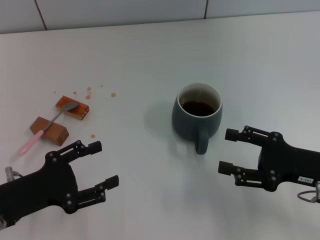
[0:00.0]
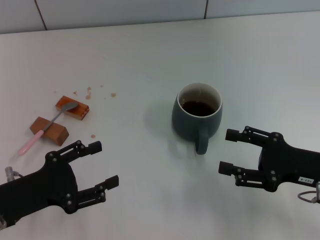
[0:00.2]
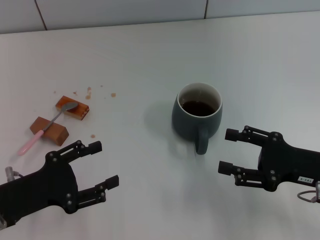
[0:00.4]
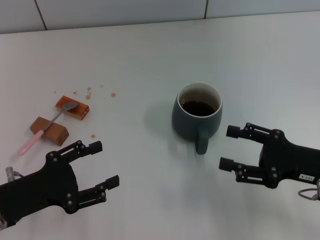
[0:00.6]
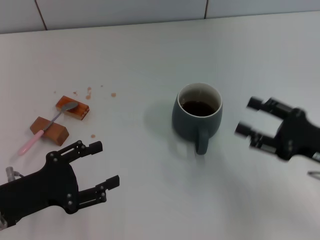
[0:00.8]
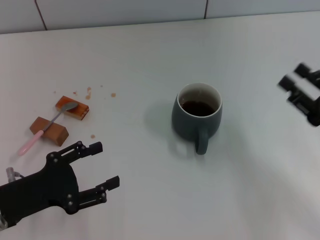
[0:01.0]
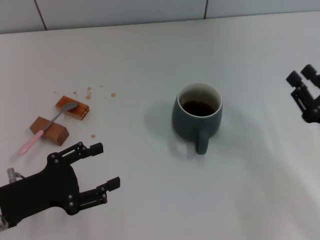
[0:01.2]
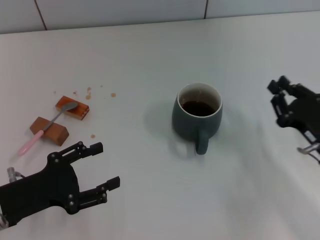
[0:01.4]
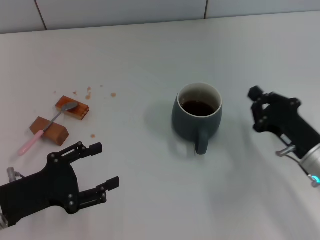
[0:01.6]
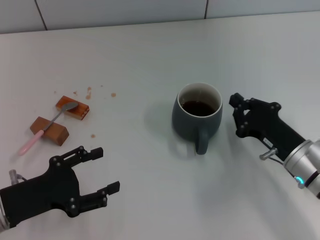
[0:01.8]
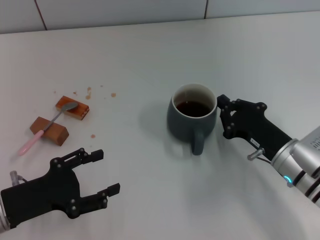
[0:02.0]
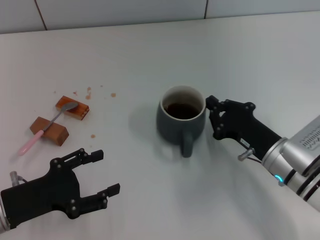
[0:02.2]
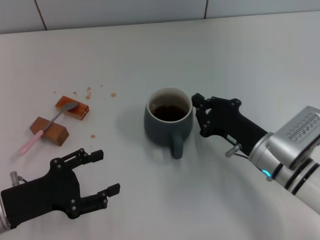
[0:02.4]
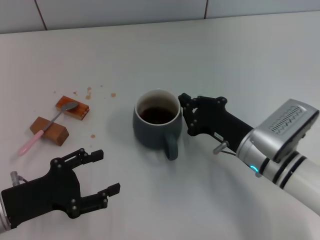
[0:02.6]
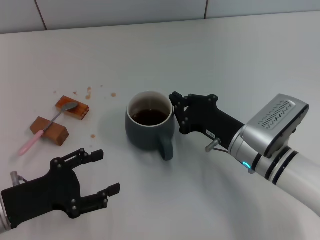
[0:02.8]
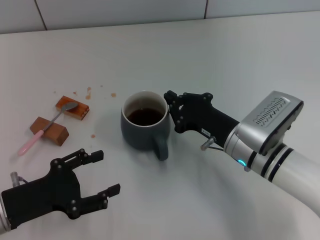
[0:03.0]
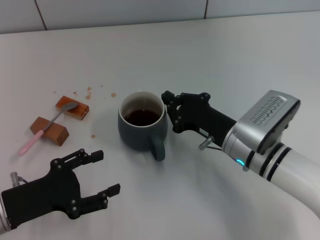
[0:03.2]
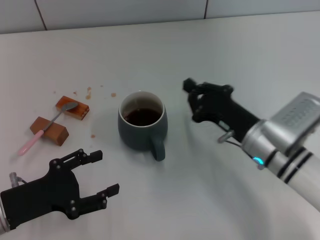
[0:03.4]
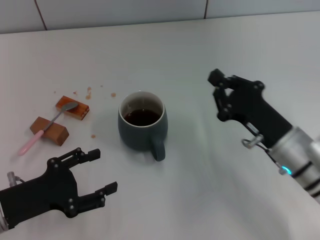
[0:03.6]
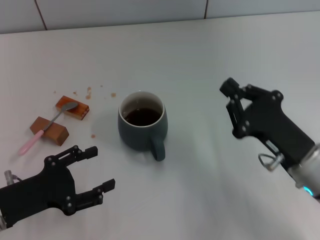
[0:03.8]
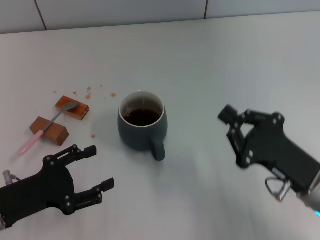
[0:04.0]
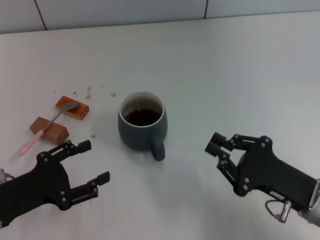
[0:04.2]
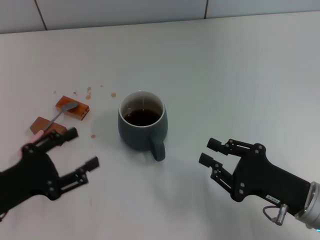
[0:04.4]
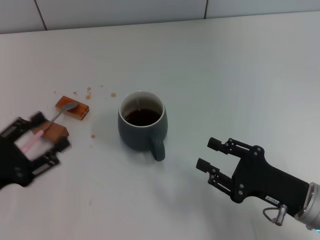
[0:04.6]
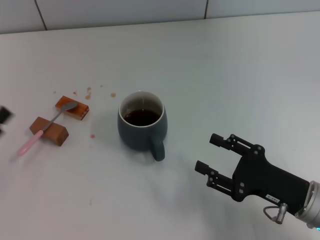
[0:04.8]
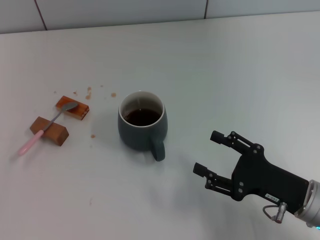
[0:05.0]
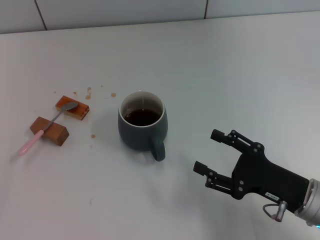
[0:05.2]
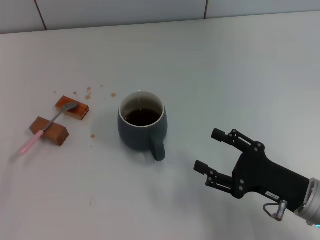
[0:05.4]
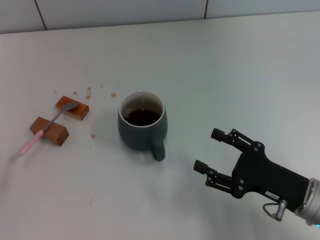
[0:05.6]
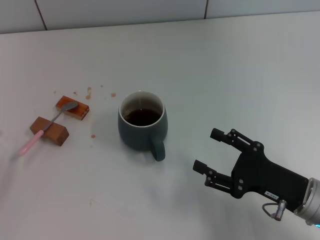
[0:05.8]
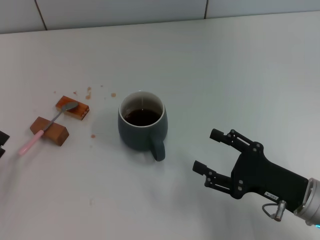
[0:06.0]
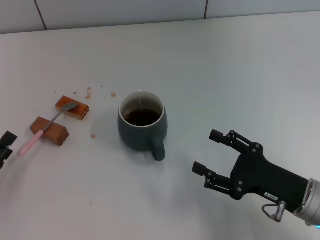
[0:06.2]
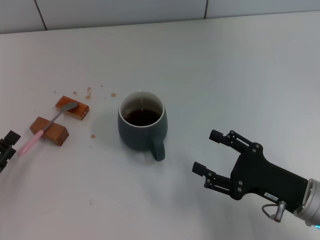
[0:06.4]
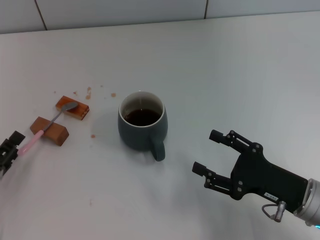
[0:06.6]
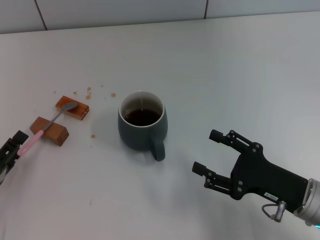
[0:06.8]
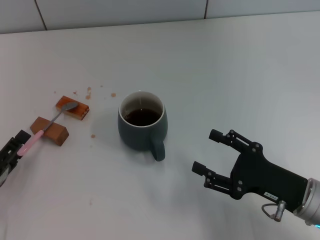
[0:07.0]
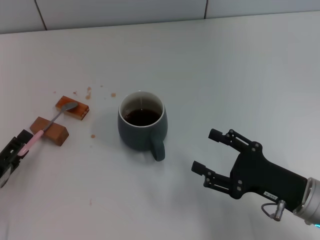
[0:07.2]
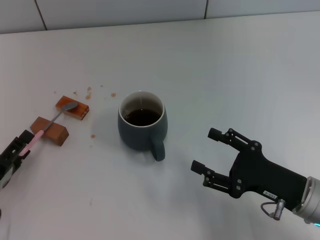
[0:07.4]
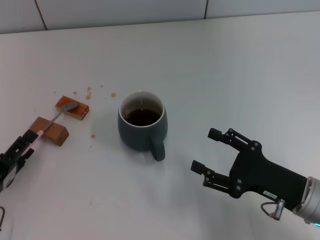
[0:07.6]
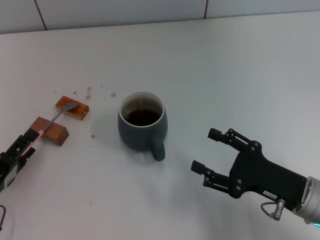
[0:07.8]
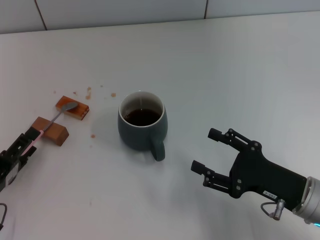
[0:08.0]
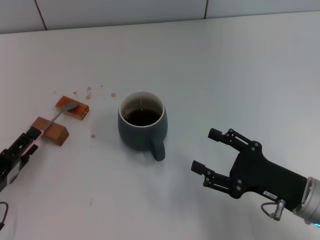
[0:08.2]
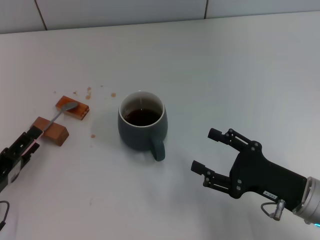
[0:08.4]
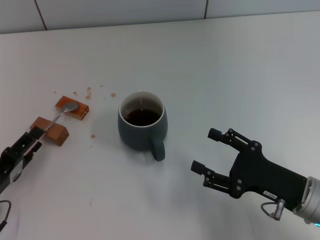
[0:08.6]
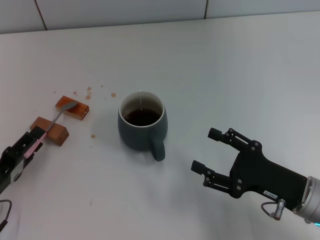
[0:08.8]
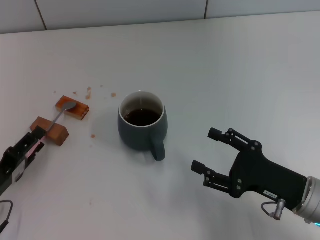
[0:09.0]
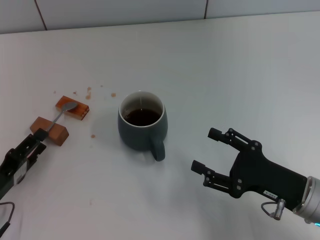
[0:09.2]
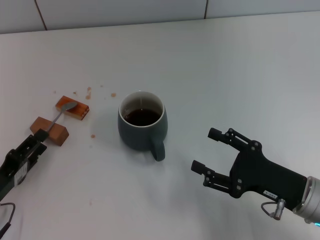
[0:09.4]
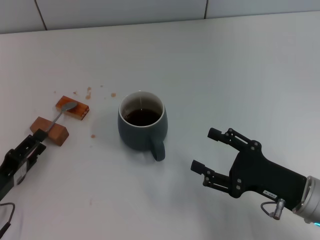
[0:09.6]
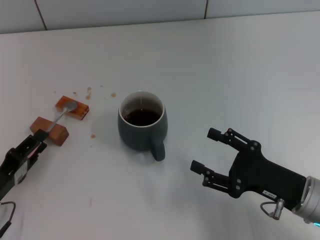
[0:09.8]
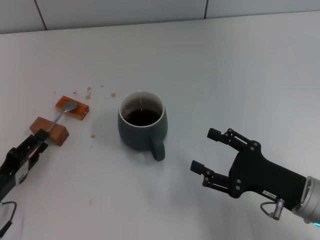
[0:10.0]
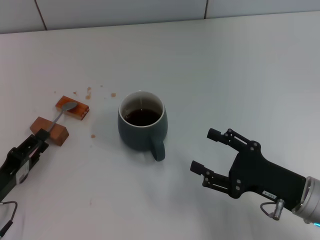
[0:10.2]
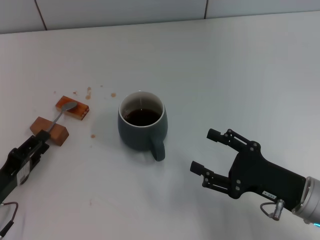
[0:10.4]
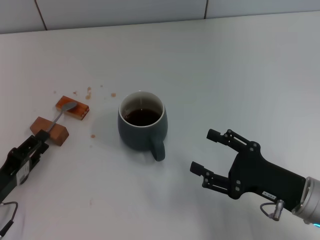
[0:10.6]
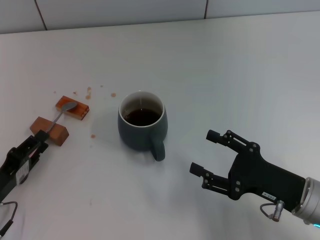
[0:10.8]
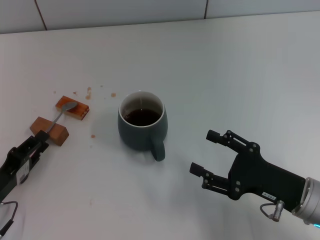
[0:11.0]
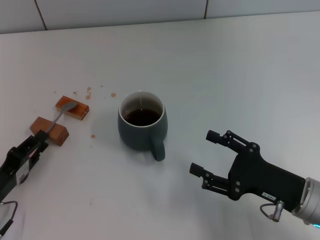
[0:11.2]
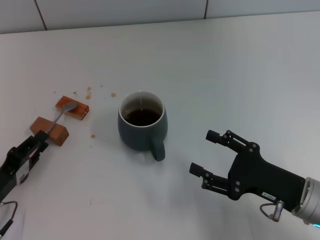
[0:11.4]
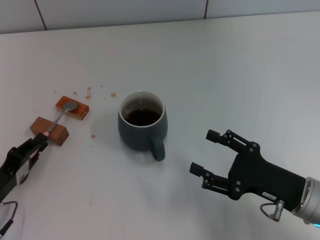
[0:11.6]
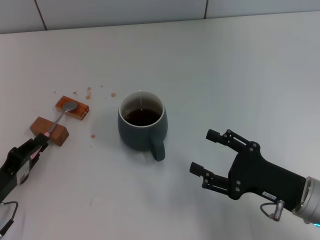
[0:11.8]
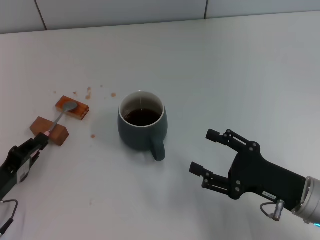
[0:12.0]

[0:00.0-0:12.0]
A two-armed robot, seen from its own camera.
Task of the whole recording: Move the grey cup to the center, lift the pink spoon, stir it three times in the cup, and put the spoon into the cup.
Step, 0:00.0 to 0:03.2: Move the cup with coffee to the center of view with the right gripper.
0:00.0 to 0:01.6: The right gripper moves some 5 cm, and closes its fingers.
0:01.6 to 0:03.0: The right gripper shifts approximately 10 cm to the left.
0:03.0 to 0:04.4: The right gripper moves backward and to the right, roughly 15 cm.
0:04.4 to 0:06.0: The right gripper opens; the left gripper is displaced to the left by approximately 5 cm.
0:06.0 to 0:09.0: There are only small adjustments of the grippers.
0:09.0 to 0:10.4: Neither gripper changes place.
0:10.4 to 0:12.0: The left gripper closes up.

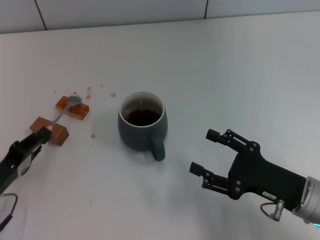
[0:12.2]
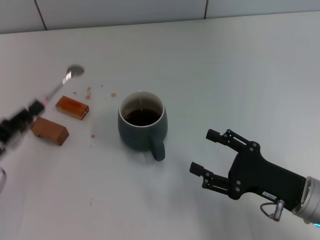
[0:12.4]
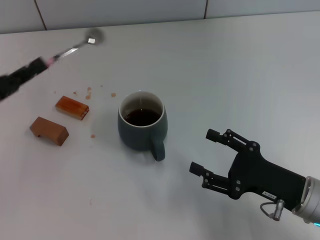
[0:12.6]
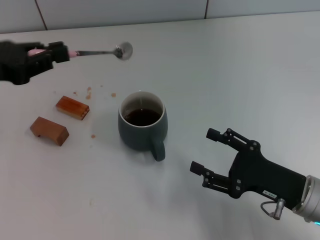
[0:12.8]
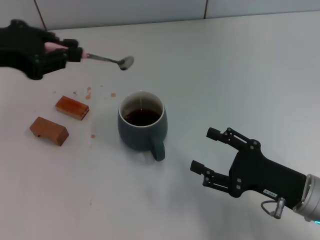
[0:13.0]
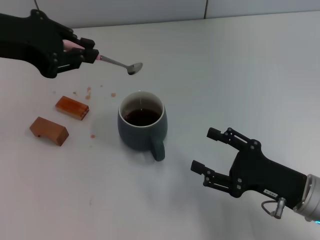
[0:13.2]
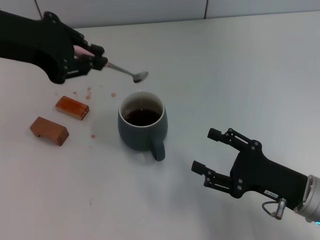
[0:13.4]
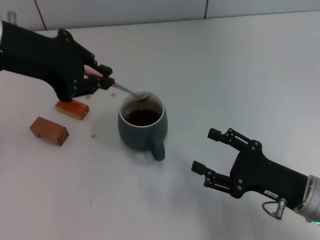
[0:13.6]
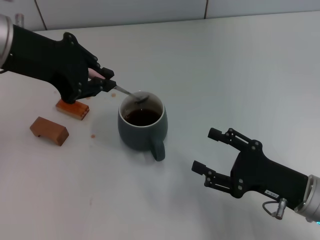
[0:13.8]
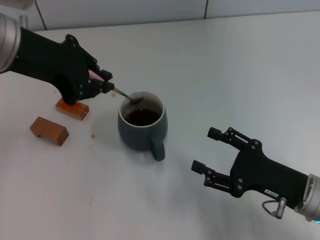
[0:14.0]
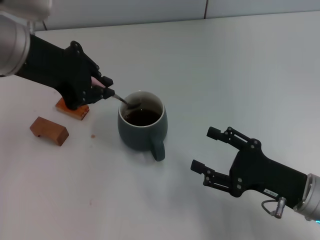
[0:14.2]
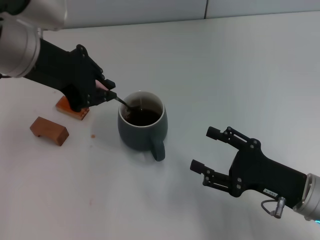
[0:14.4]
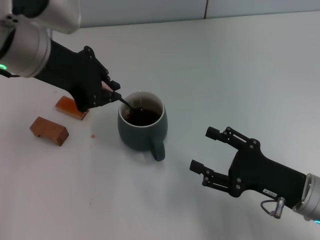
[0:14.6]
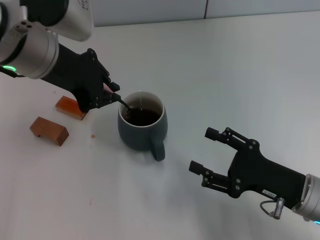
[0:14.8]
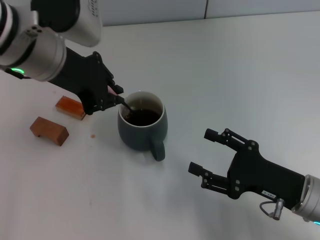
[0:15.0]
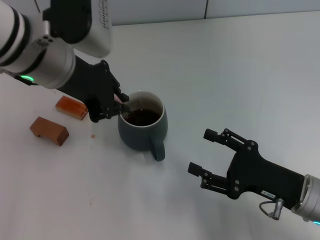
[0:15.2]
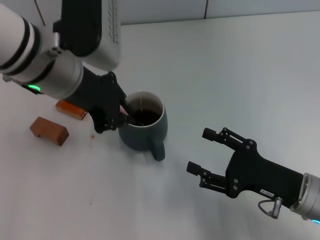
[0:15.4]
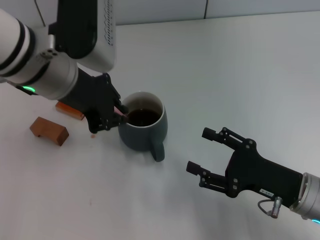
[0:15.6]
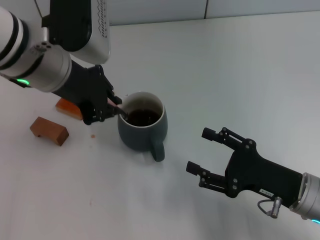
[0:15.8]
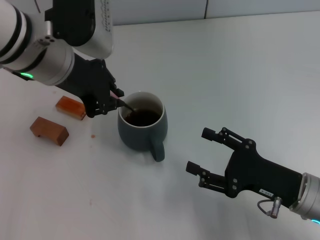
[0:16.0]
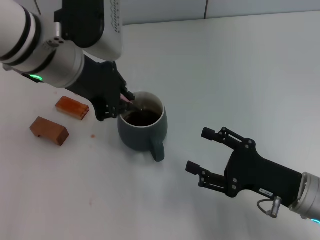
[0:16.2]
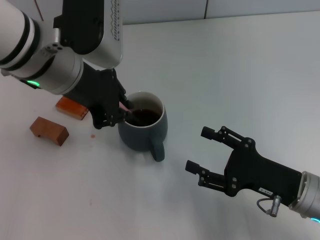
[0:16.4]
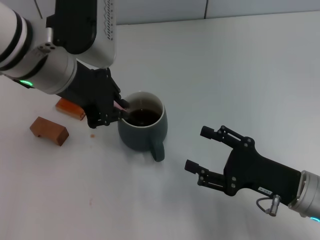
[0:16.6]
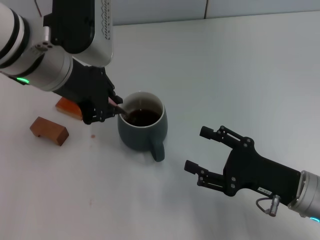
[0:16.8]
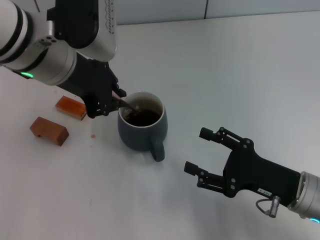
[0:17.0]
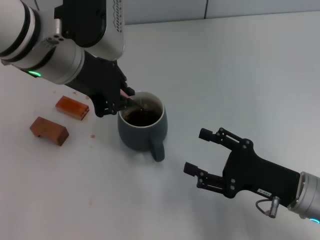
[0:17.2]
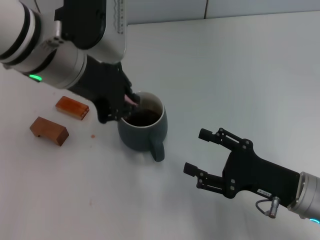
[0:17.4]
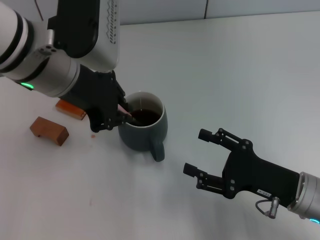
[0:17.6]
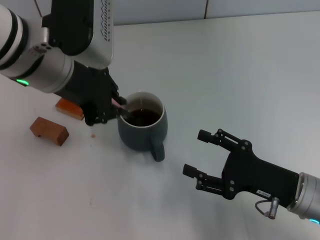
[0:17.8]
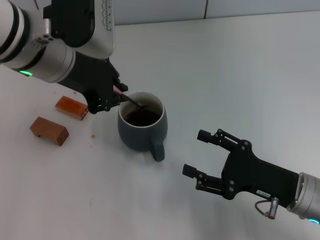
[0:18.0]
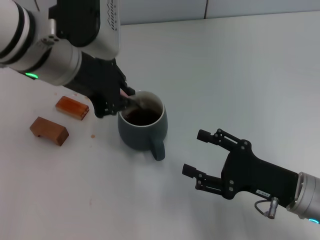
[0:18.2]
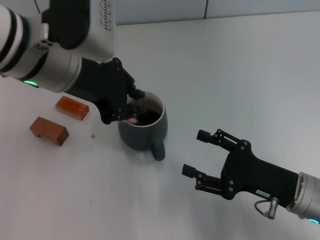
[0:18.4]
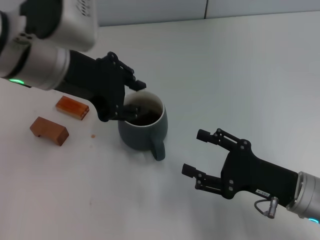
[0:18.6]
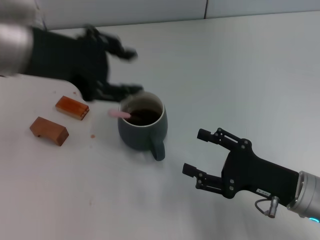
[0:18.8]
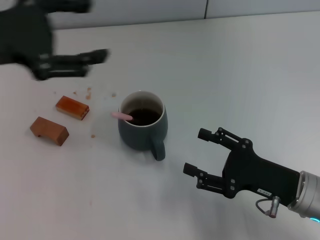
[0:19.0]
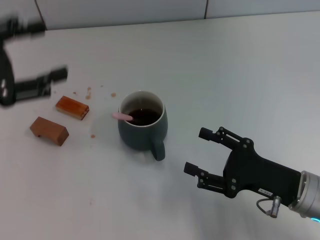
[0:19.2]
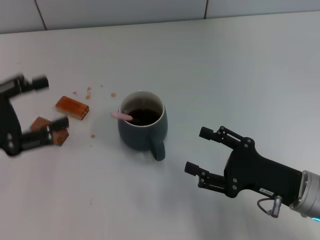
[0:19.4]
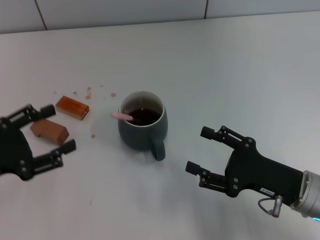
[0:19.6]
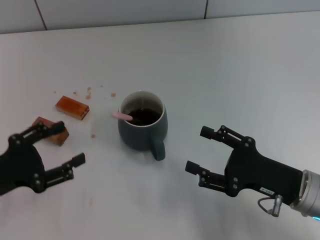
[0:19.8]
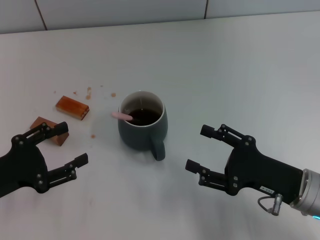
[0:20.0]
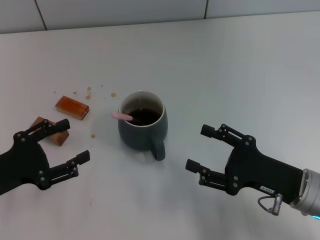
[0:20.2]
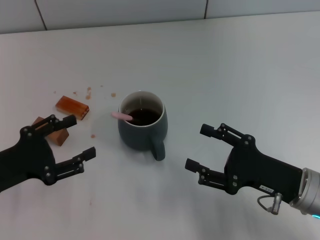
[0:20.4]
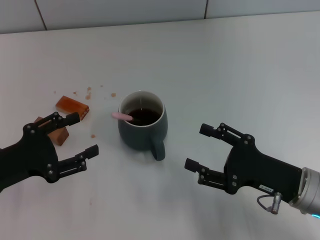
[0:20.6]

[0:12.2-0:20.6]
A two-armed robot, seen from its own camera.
Task of the whole recording: Move the grey cup to the center, lift the pink spoon, stir it three times in the cup, and put the spoon into the cup.
Step, 0:12.4 to 0:18.8: Stir the coffee in the cup with the left gripper.
0:12.2 to 0:13.6: The left gripper shifts approximately 30 cm upward and forward.
0:13.6 to 0:15.0: The left gripper heads to the right, covering approximately 5 cm.
0:15.0 to 0:16.4: The grippers move only a little.
0:16.4 to 0:17.8: Neither gripper changes place.
0:17.8 to 0:19.2: The left gripper moves to the left and backward, roughly 15 cm, and opens its fingers.
0:19.2 to 0:20.6: The left gripper shifts roughly 15 cm downward.
